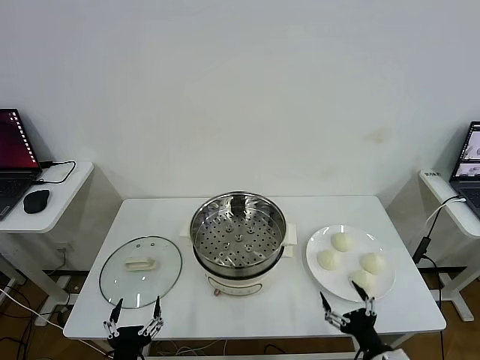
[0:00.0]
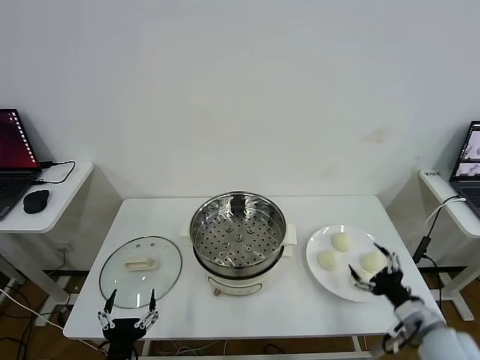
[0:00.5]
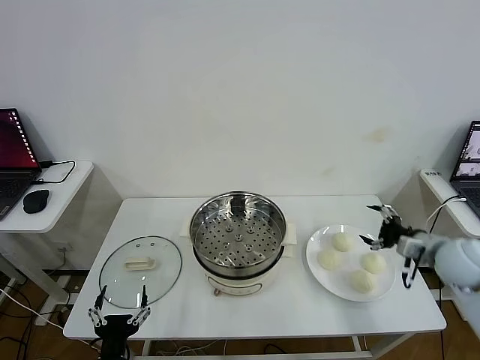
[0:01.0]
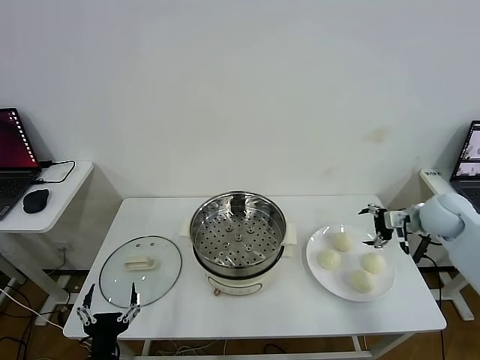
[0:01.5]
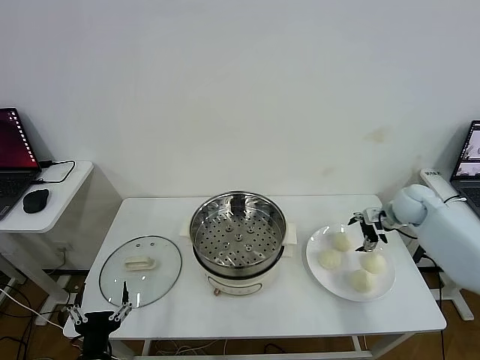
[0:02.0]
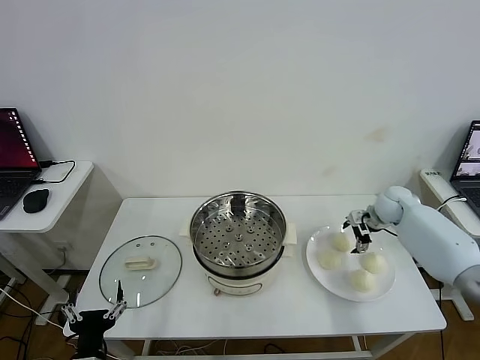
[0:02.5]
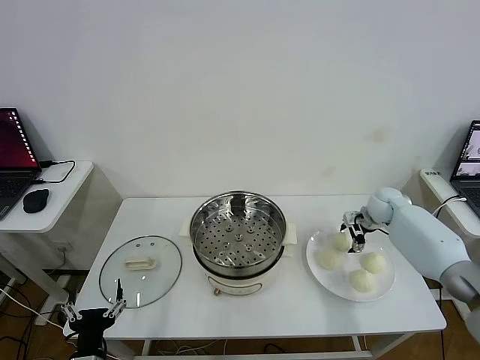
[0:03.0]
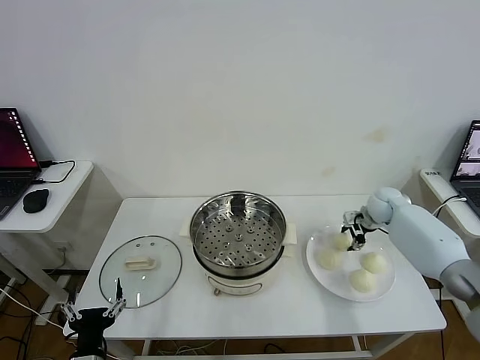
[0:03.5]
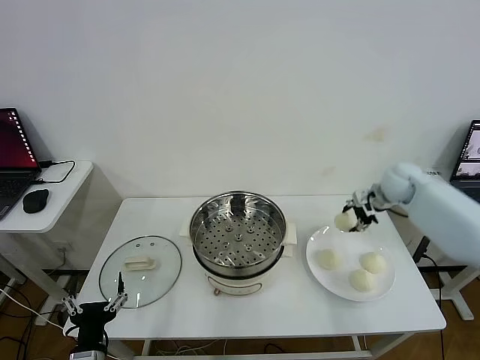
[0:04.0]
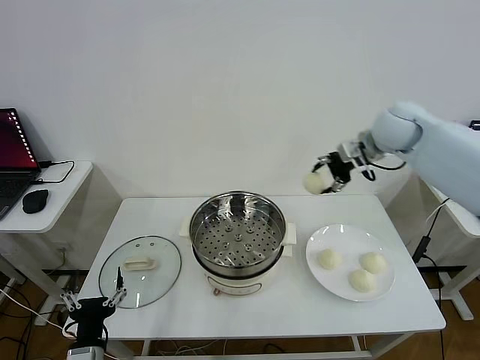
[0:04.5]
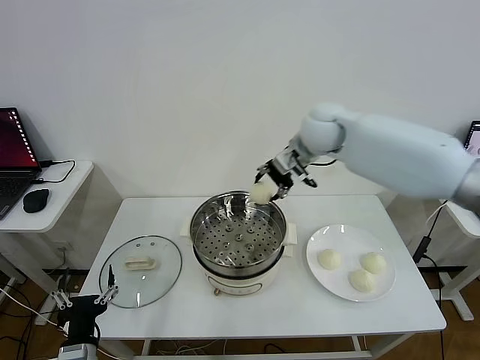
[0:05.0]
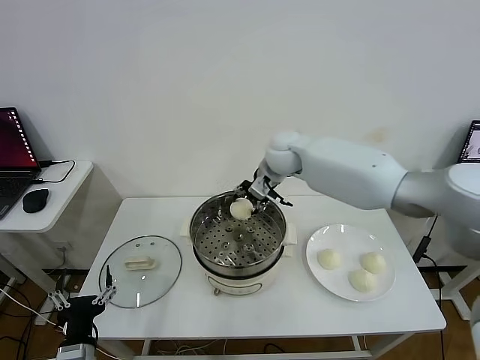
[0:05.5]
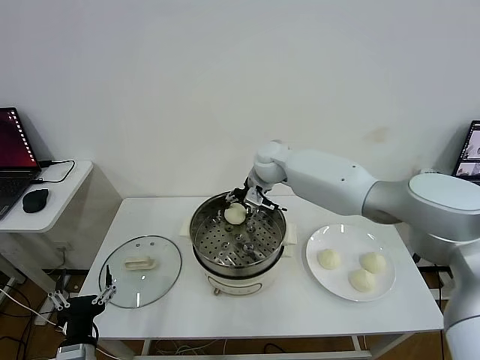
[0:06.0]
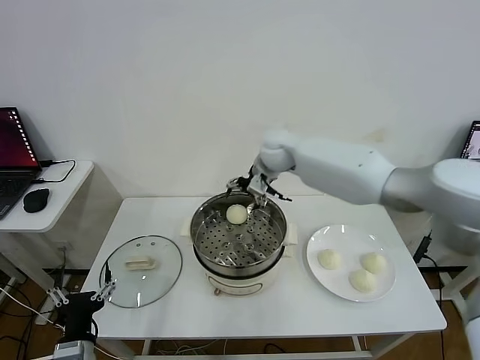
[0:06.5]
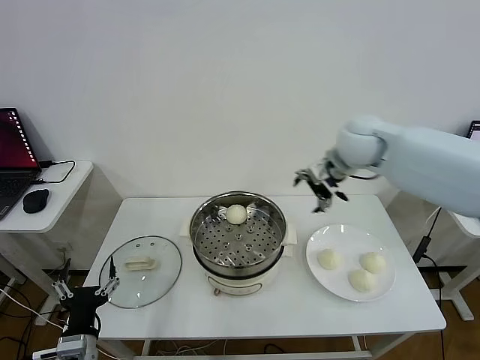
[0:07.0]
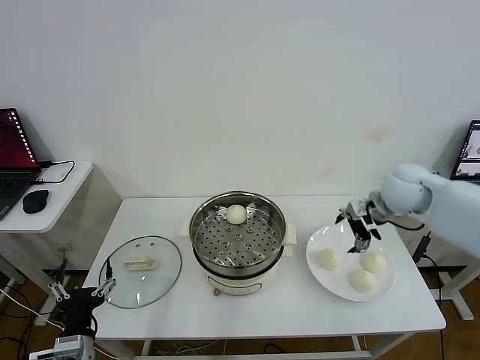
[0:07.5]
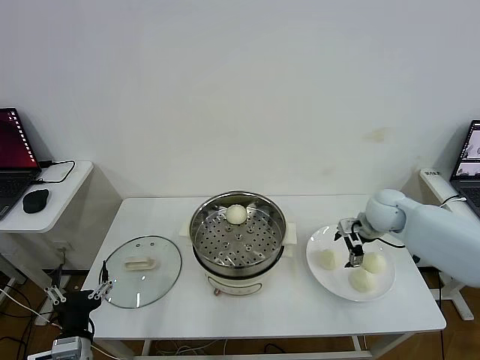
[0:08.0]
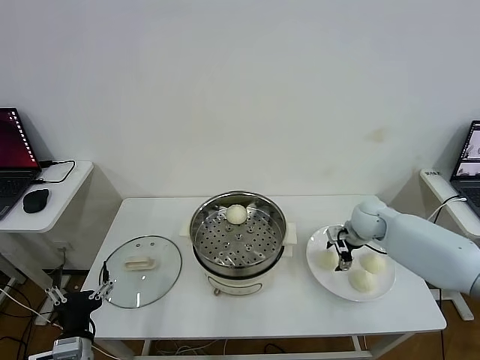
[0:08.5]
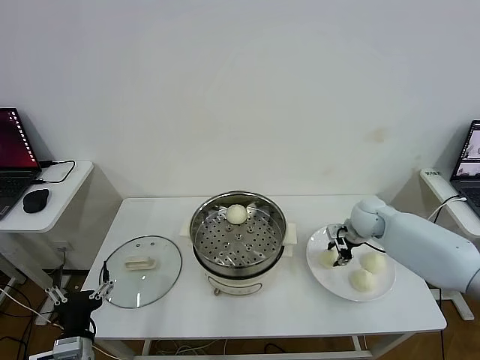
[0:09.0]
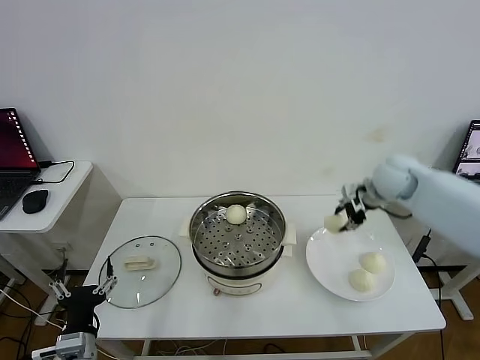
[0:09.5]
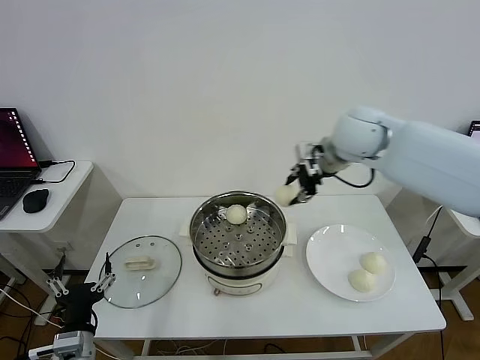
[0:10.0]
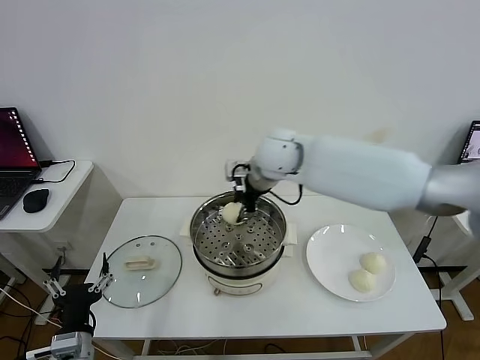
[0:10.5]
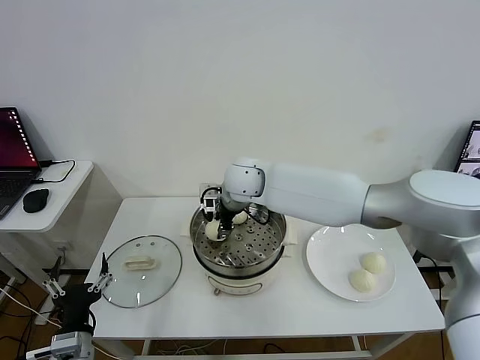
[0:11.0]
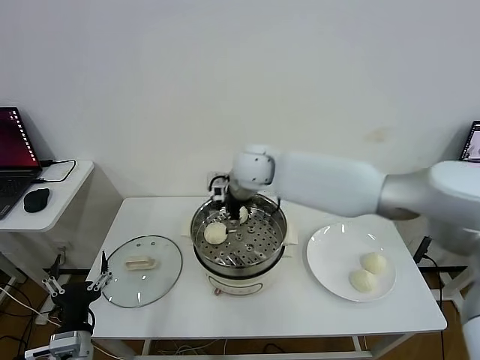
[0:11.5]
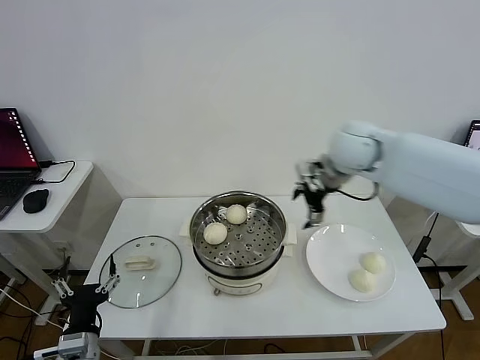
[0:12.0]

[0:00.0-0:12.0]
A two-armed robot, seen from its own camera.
Step, 0:00.0 to 0:03.0: Grasp the baozi in the plate with right gripper.
Step, 0:04.0 to 0:06.5: Place the baozi on the steamer with right gripper.
Step, 0:07.0 to 0:08.5: Grasp the baozi in the plate with right gripper.
Step, 0:09.0 to 0:11.5: Place the baozi on the steamer with right gripper.
0:02.0 to 0:04.0: The right gripper heads upward, covering roughly 10 cm, and closes.
0:04.0 to 0:06.0: The right gripper shifts about 30 cm to the left.
0:06.0 to 0:08.0: The right gripper goes about 25 cm to the right, and opens.
0:08.0 to 0:10.0: The right gripper goes about 25 cm upward and to the left, and closes.
0:10.0 to 0:12.0: The right gripper reaches approximately 20 cm to the left, then returns, and opens up.

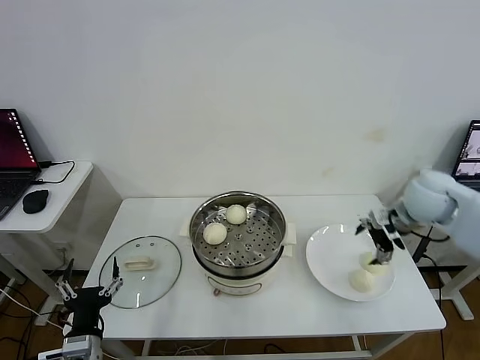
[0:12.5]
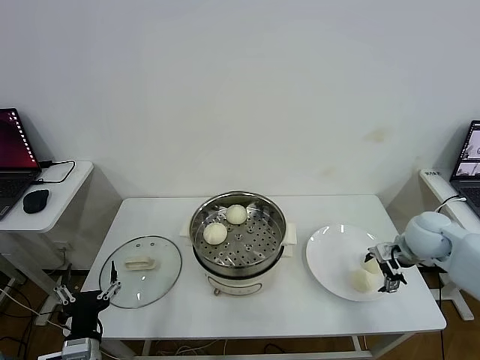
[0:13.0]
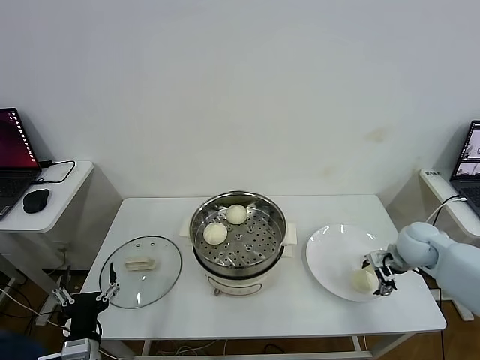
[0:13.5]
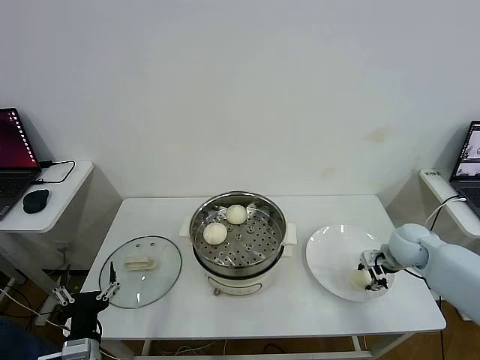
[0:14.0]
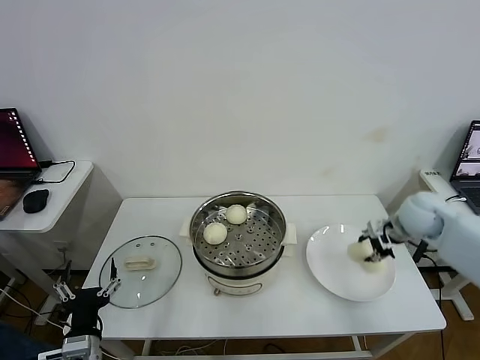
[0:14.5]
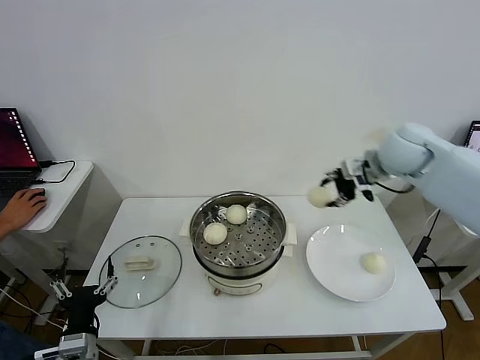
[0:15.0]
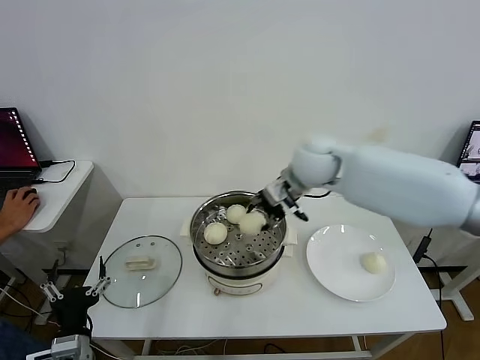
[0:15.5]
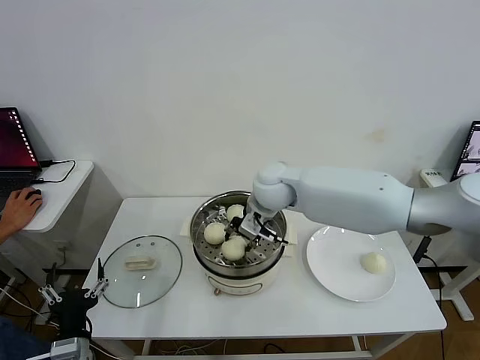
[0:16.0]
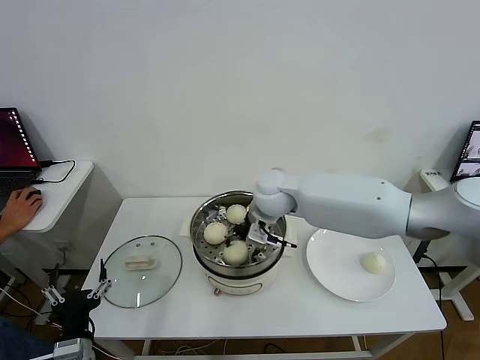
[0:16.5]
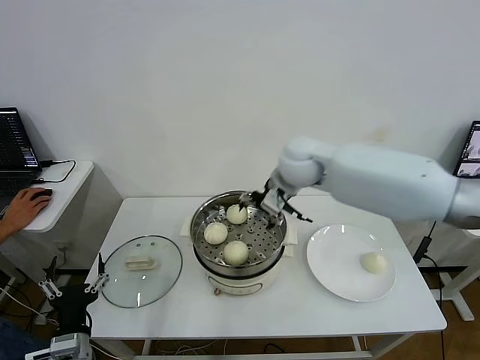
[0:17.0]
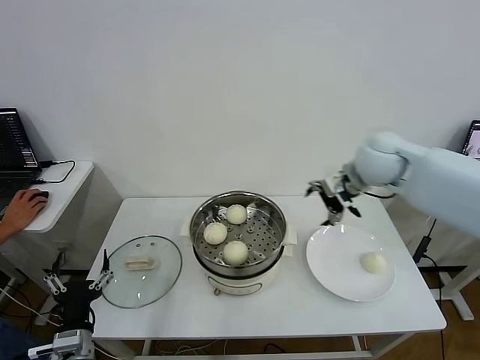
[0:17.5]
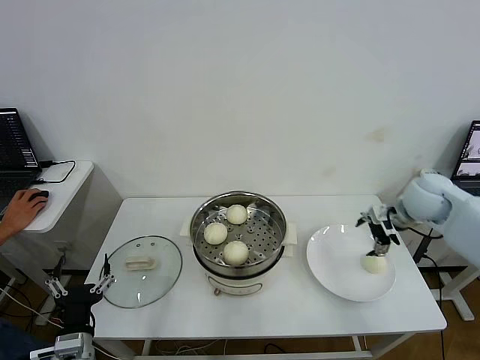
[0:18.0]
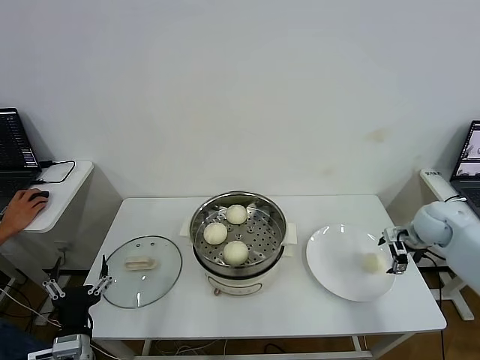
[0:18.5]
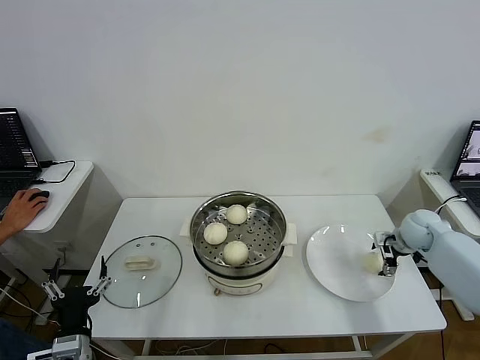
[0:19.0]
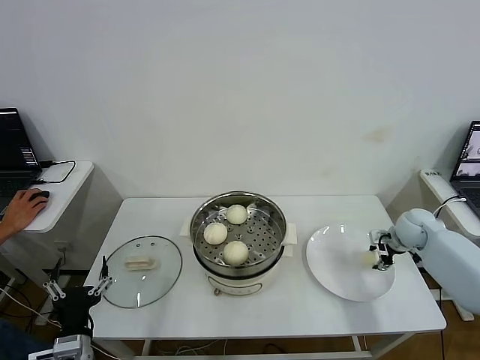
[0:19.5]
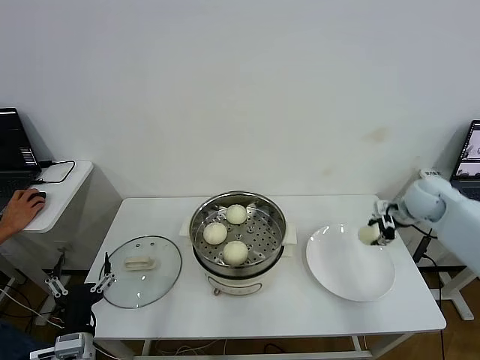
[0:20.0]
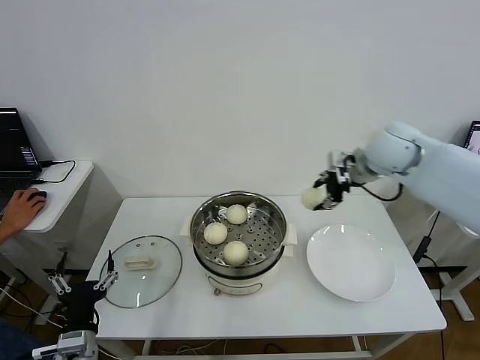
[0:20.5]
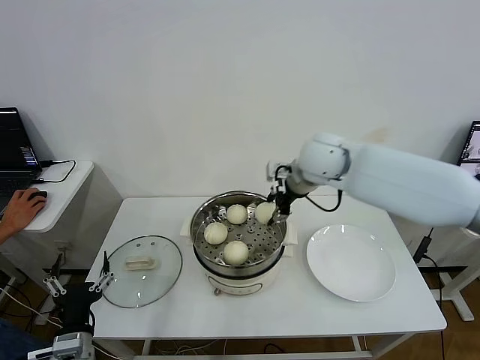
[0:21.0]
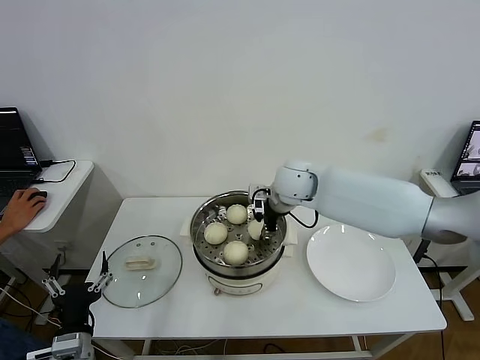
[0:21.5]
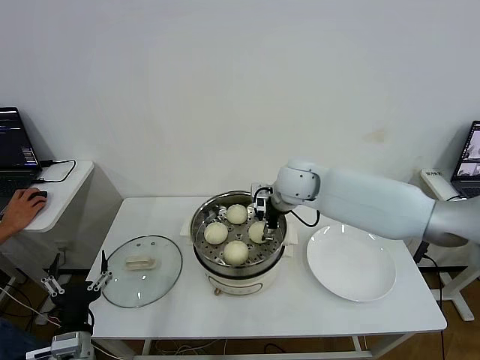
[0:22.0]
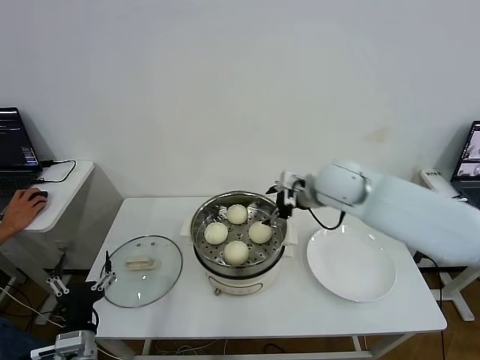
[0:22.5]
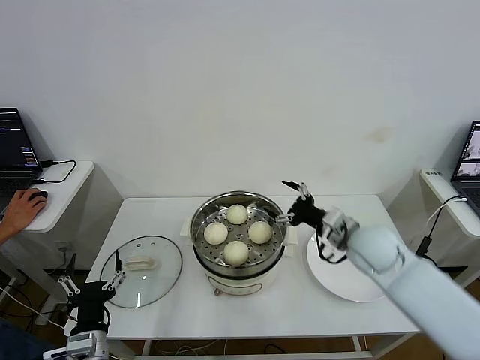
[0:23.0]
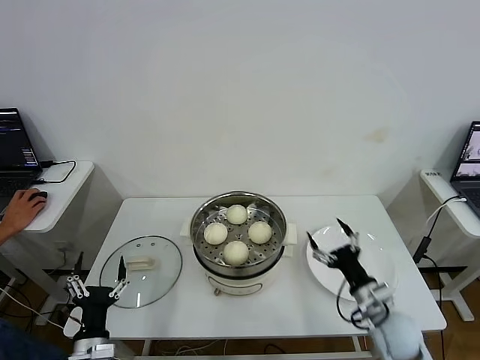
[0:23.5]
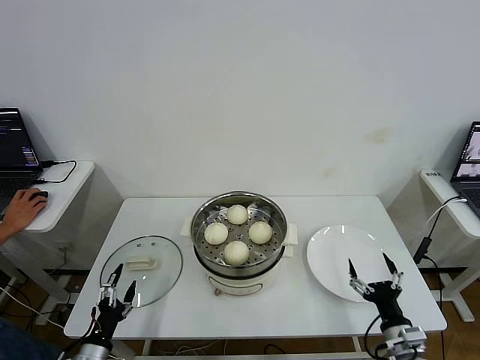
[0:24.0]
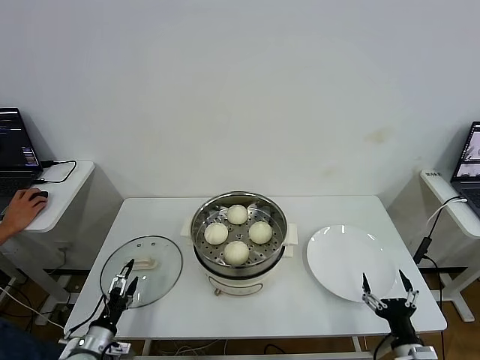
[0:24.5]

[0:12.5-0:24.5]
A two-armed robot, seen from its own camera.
Step, 0:14.0 to 0:16.5: Place the baozi on the steamer with right gripper.
Step, 0:17.0 to 0:19.0: Grasp the baozi in the plate with right gripper.
Step, 0:19.5 to 0:22.0: Place the baozi on the steamer with right gripper.
0:12.5 to 0:14.5: The right gripper reaches about 15 cm downward, then returns, and closes.
0:14.5 to 0:16.5: The right gripper shifts roughly 35 cm to the left, and opens its fingers.
0:16.5 to 0:18.5: The right gripper travels to the right by roughly 40 cm.
0:18.5 to 0:20.5: The right gripper goes some 25 cm upward and to the left, and closes.
0:20.5 to 0:22.5: The right gripper heads downward and to the left, covering approximately 10 cm, and opens its fingers.
0:22.5 to 0:24.5: The left gripper goes roughly 15 cm downward and to the left. The right gripper heads backward, downward and to the right, covering some 50 cm.

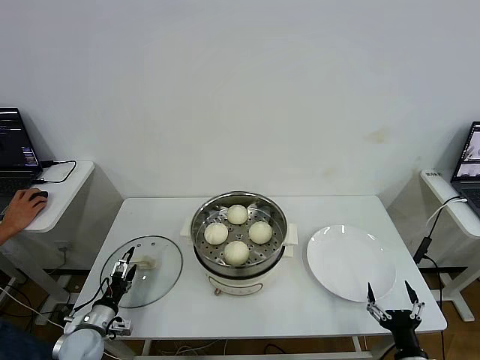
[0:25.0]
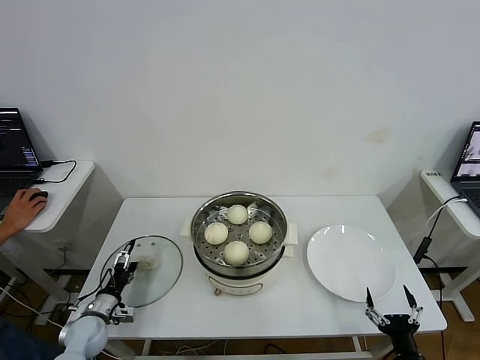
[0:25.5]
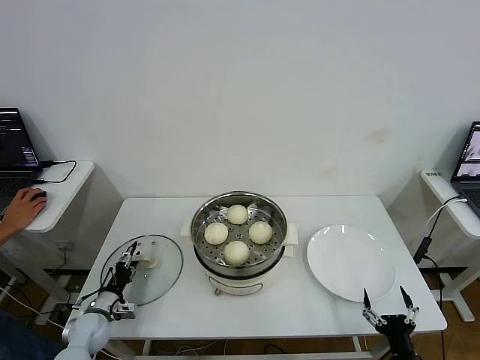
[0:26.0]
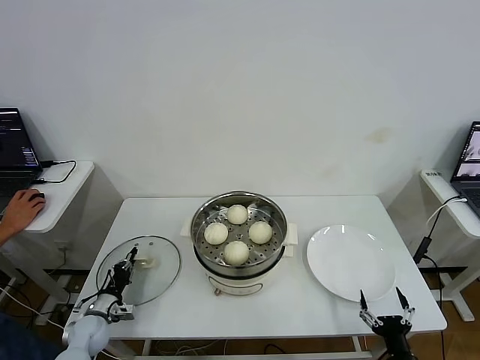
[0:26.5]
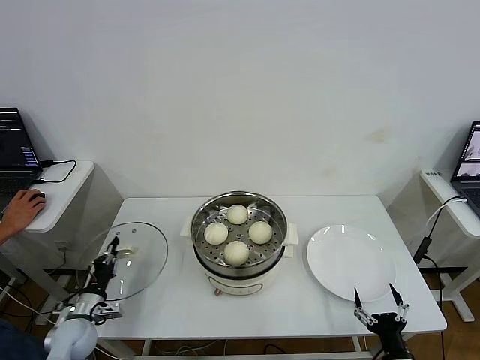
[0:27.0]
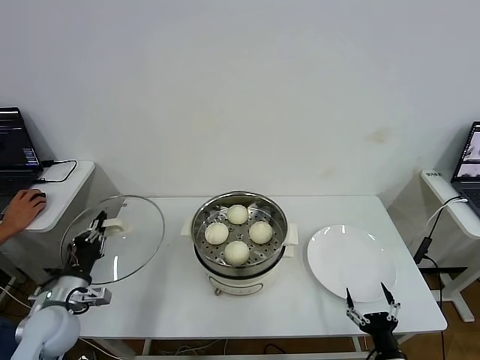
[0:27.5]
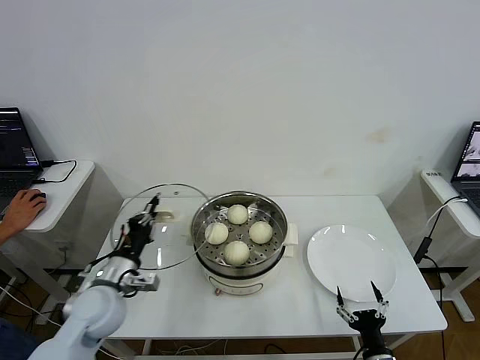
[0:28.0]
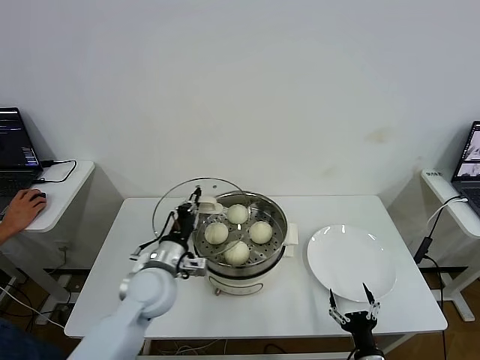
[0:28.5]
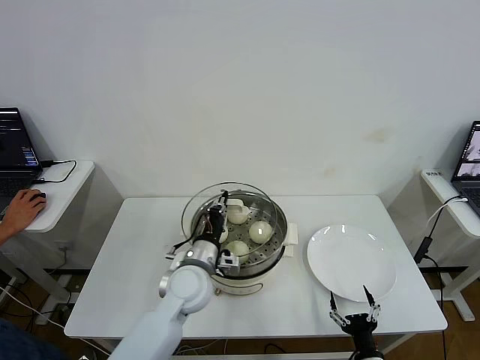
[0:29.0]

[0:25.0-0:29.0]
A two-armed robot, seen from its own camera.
0:25.0 to 0:27.0: The left gripper closes its fingers.
0:27.0 to 0:29.0: The right gripper ends up some 5 cm from where it was. The left gripper shifts some 35 cm to the right and upward.
